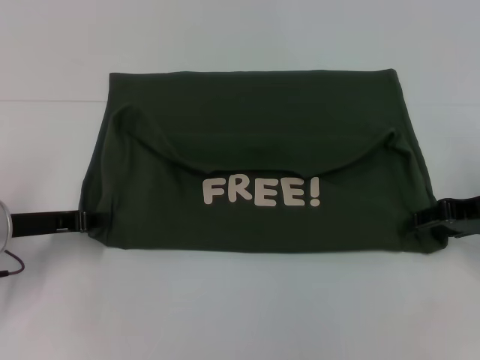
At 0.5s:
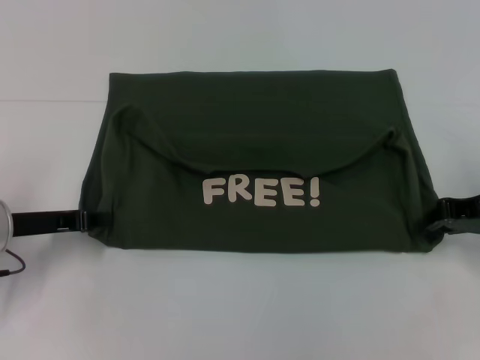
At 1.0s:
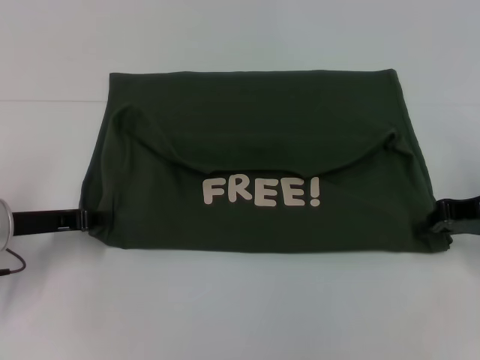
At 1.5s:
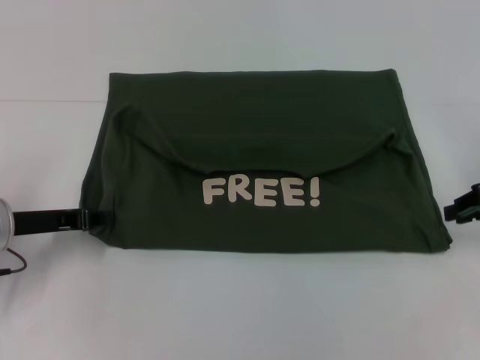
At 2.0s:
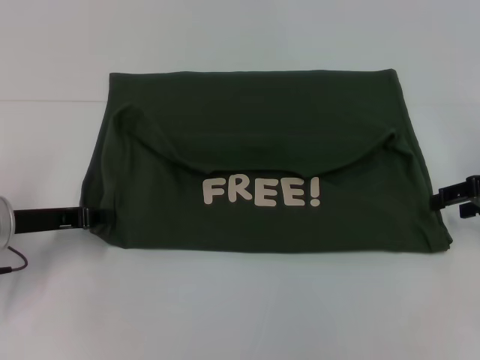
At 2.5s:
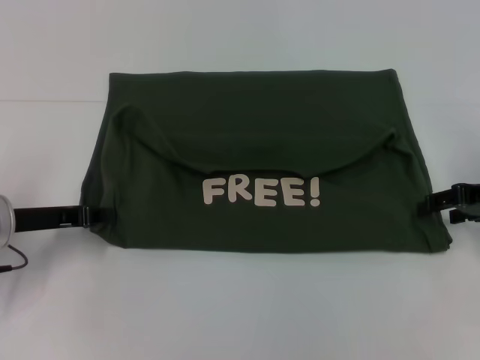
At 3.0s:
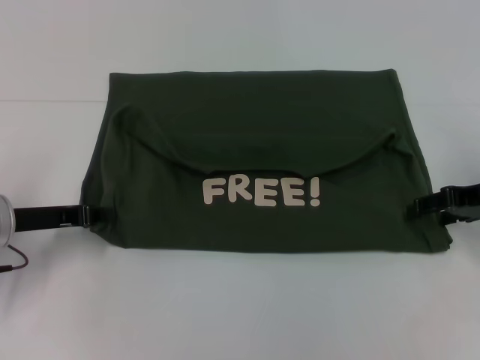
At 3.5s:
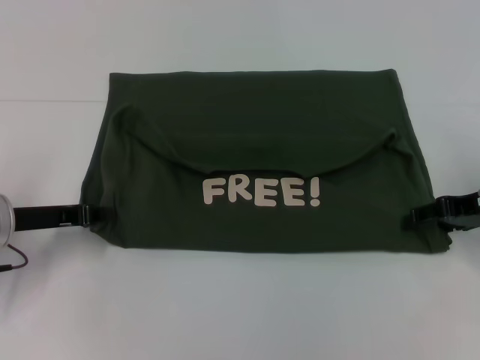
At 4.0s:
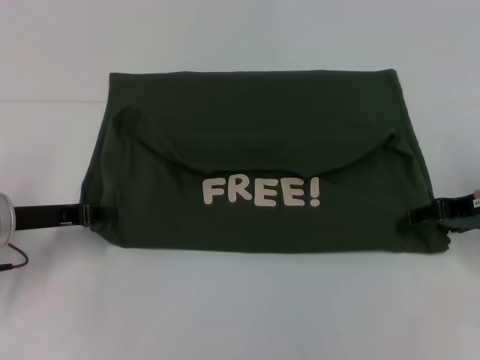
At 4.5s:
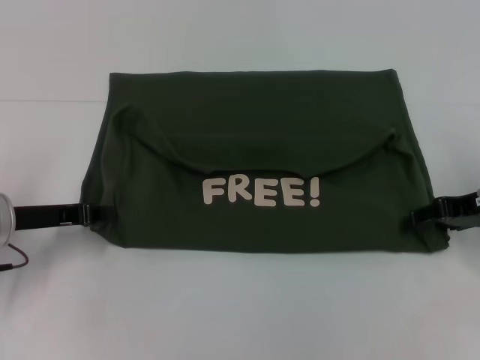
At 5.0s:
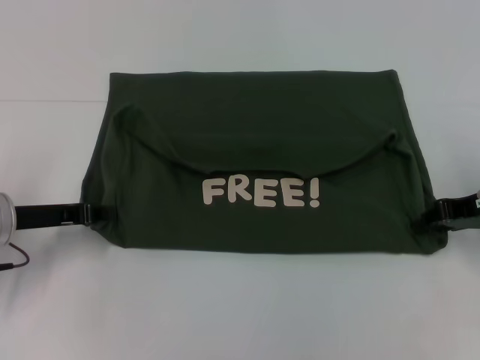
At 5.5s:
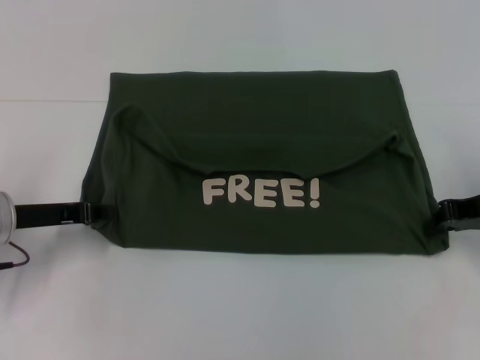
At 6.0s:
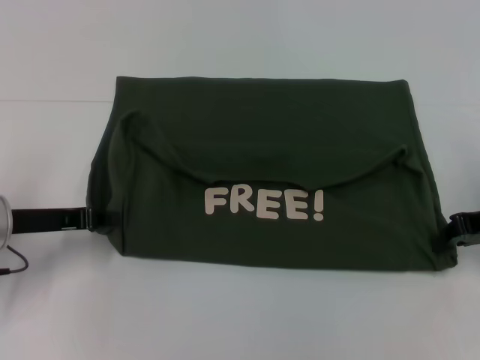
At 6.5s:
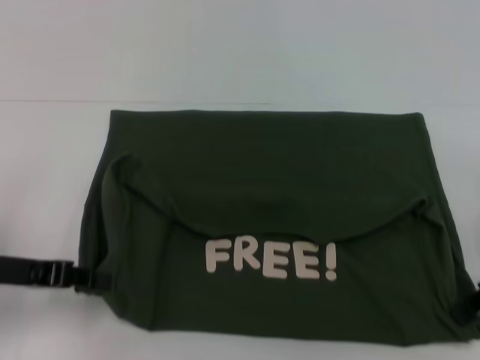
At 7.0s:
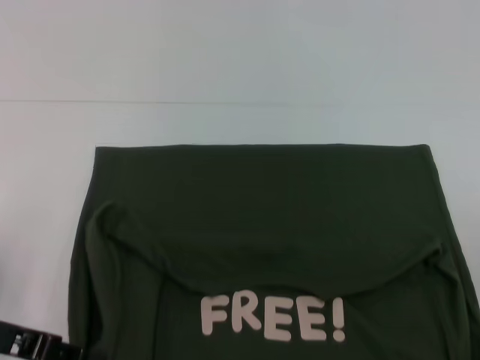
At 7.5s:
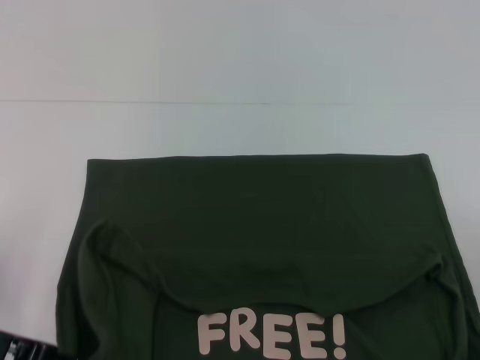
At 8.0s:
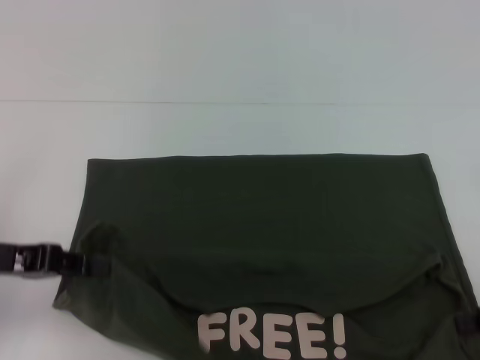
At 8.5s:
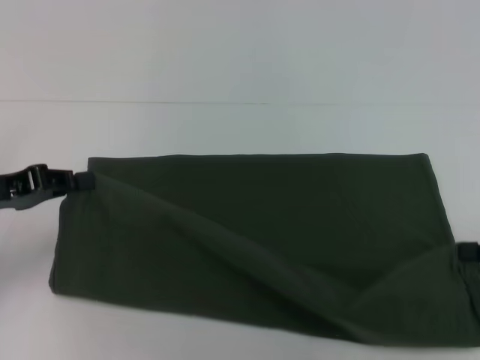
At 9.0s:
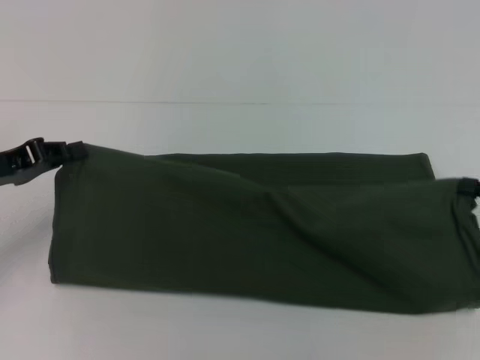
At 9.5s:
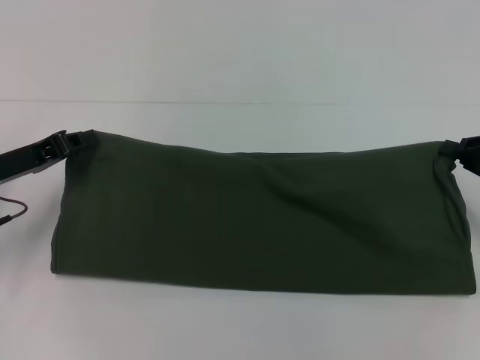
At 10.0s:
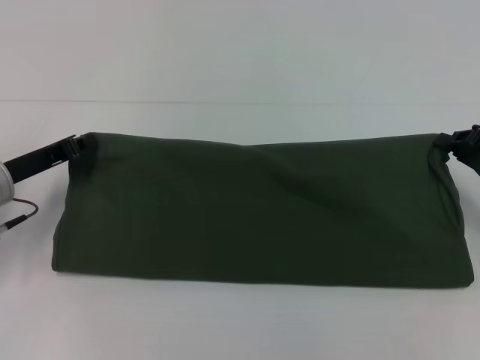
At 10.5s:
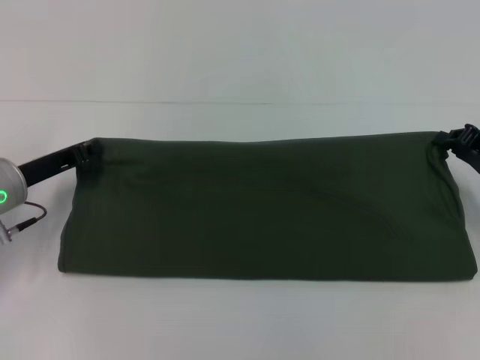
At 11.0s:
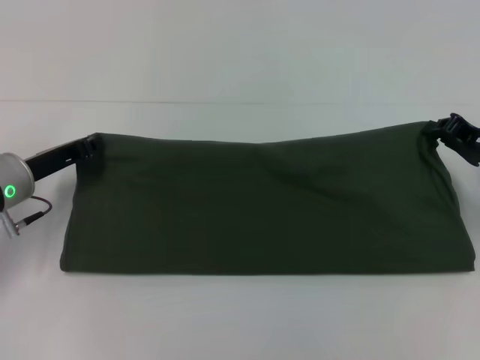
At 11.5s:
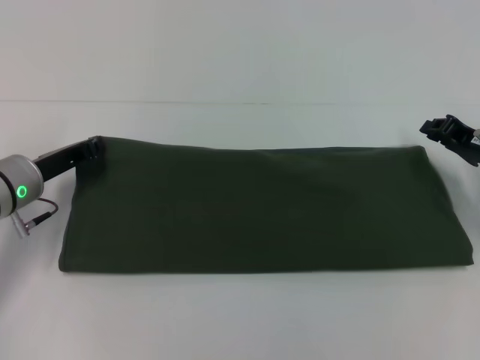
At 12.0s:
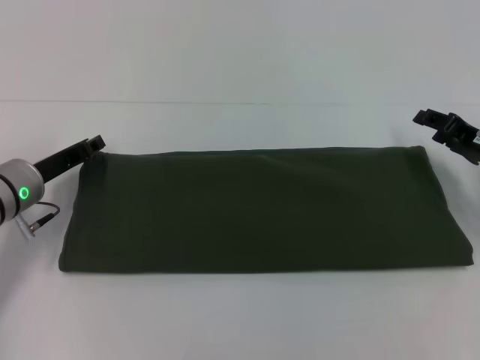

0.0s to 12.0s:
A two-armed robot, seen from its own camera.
Step, 0.0s to 7.0s: Pull the clothes with your left hand.
Step, 0.0s to 7.0s: Pull the clothes with your right hand.
Step, 7.5s to 11.5s: Fold the clothes with your right hand.
0.0s to 2.0s: The right gripper closes, then opens again.
2.0s to 4.0s: There are only small adjustments of the grippers.
4.0s to 6.0s: The right gripper closes its fingers.
6.0s to 8.0s: The right gripper heads backward, covering roughly 10 cm. Meanwhile the left gripper shifts by roughly 5 cm.
8.0s to 10.0s: The grippers both shift forward by some 10 cm.
10.0s to 12.0s: The right gripper opens its fingers.

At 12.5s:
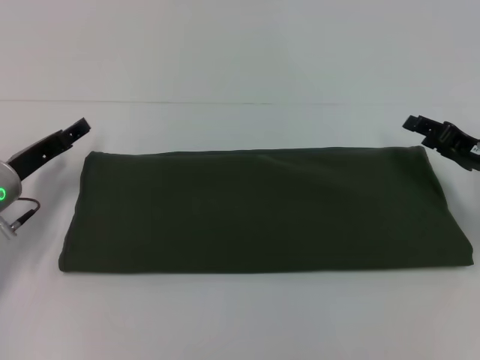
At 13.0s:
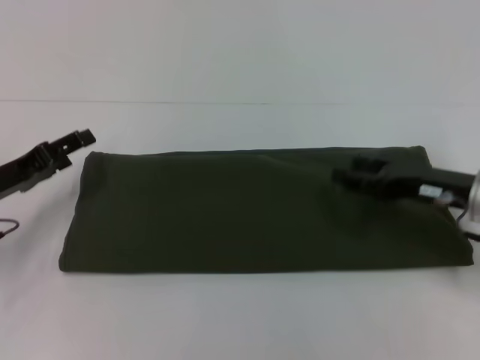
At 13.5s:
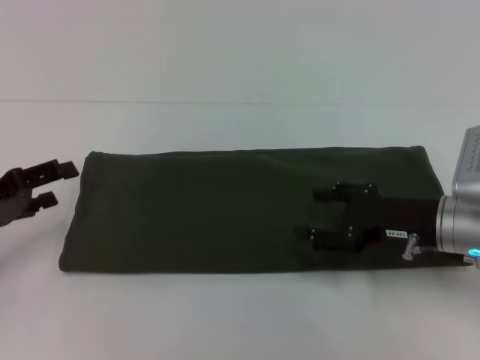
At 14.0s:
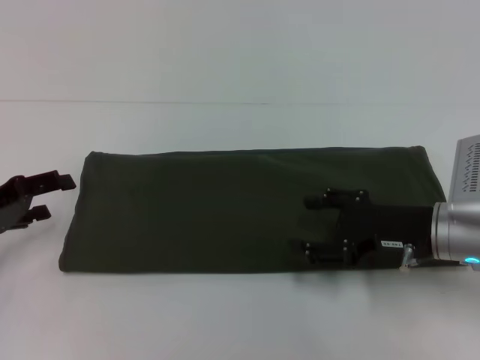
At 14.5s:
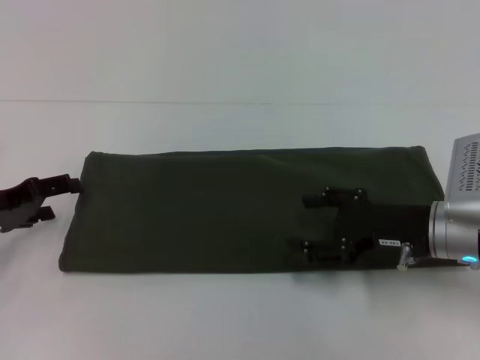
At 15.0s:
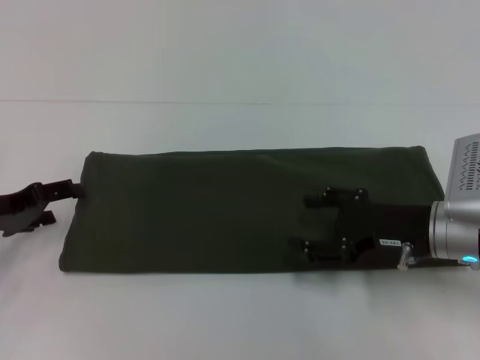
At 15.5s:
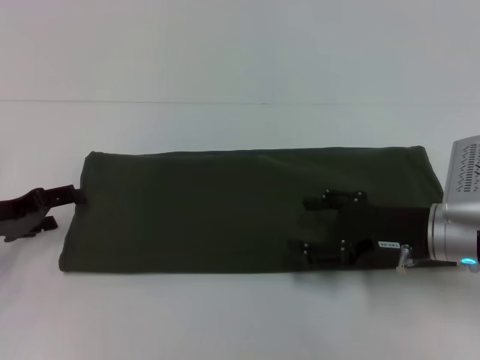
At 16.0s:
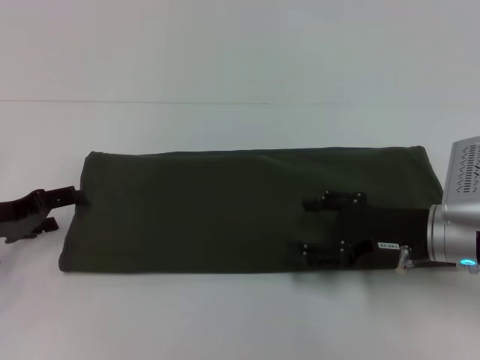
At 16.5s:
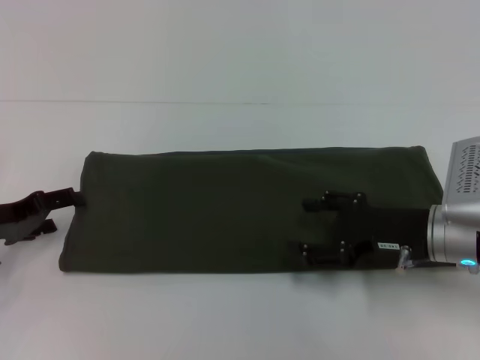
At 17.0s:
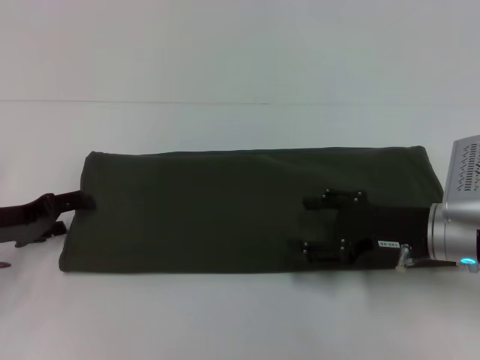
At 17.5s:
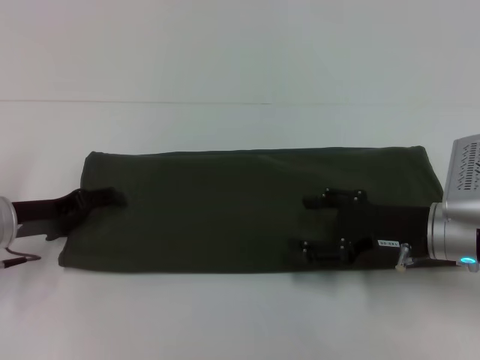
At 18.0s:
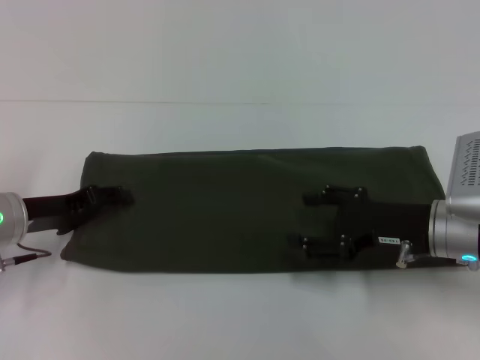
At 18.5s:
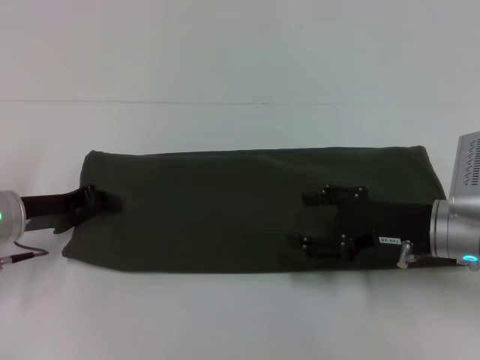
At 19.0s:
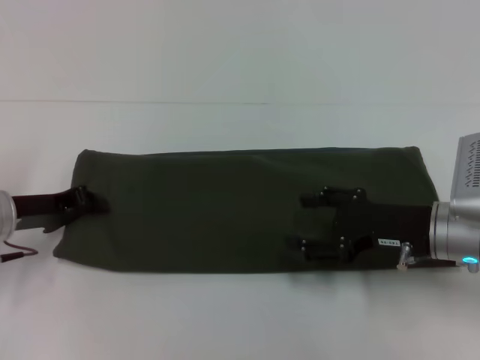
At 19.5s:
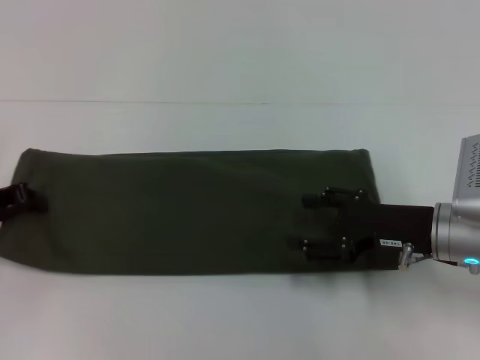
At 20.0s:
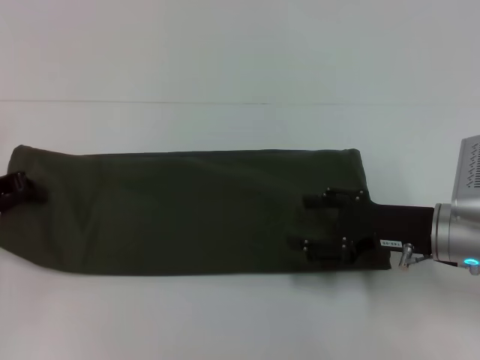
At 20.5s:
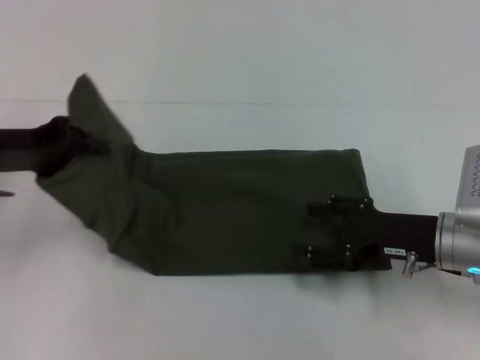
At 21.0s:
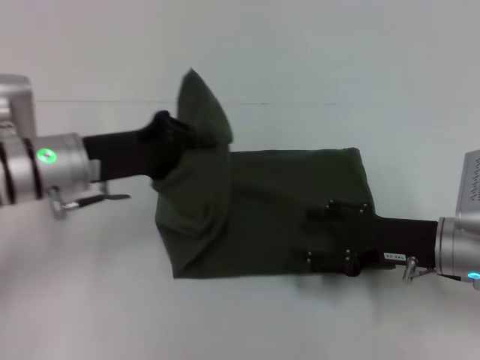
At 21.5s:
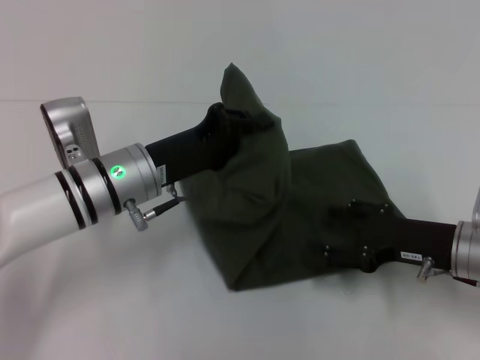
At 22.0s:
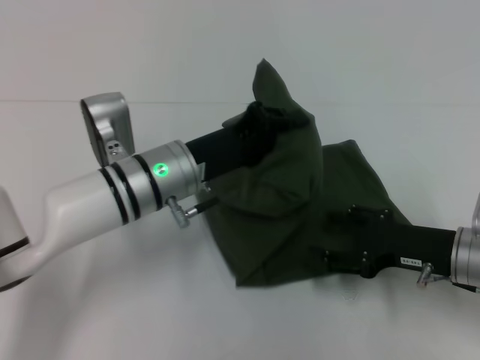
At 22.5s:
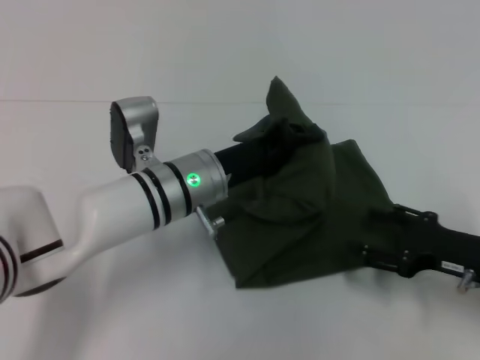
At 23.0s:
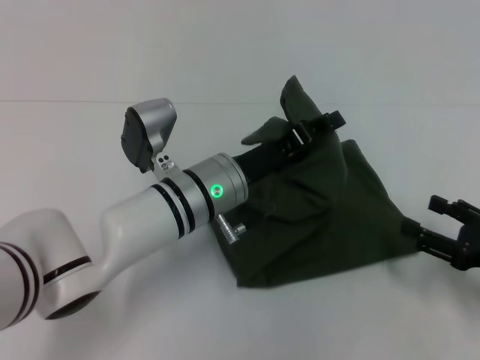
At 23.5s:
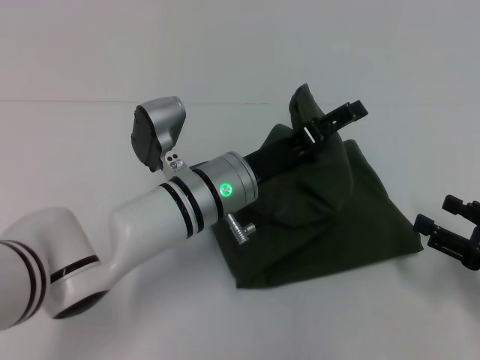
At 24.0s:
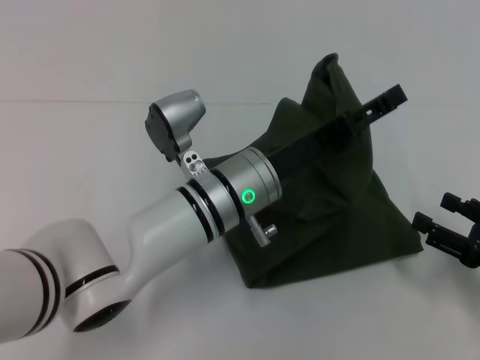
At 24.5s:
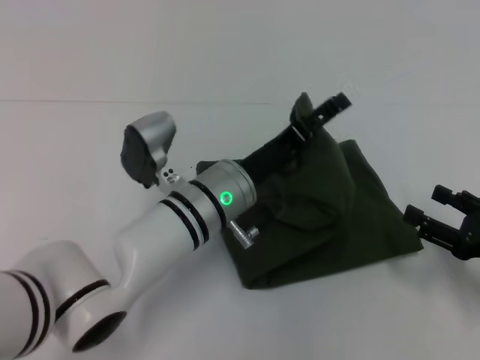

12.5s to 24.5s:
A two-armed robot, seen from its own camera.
12.5s to 14.5s: The right gripper shifts roughly 10 cm to the left. The left gripper shifts by roughly 5 cm.
14.5s to 16.5s: The grippers stay close to where they were, moving slightly.
16.5s to 18.5s: The left gripper closes up.
18.5s to 20.5s: The left gripper moves upward, some 10 cm, and closes up.
20.5s to 22.5s: The left gripper travels to the right by approximately 20 cm, while the right gripper goes approximately 5 cm to the right.
22.5s to 24.5s: The right gripper ends up about 5 cm from where it was. Meanwhile the left gripper opens.

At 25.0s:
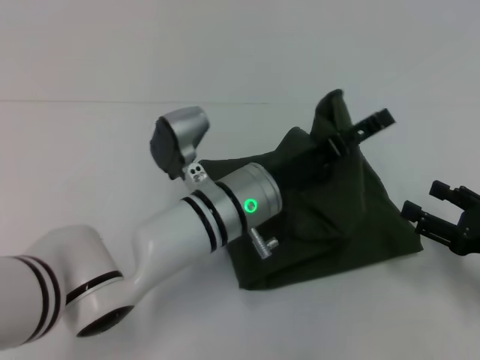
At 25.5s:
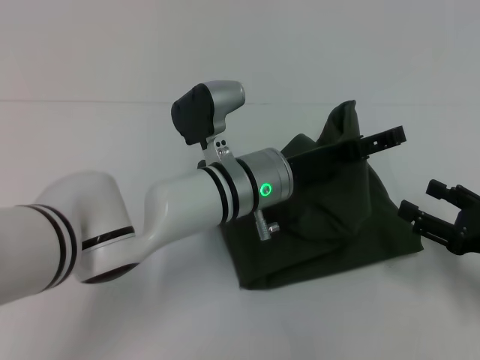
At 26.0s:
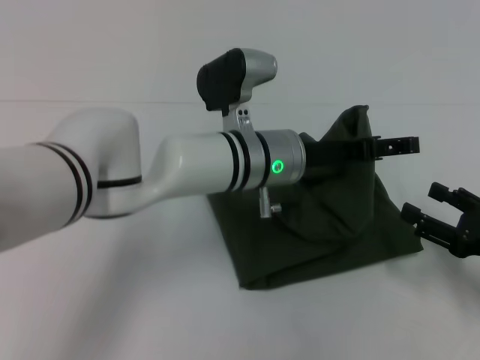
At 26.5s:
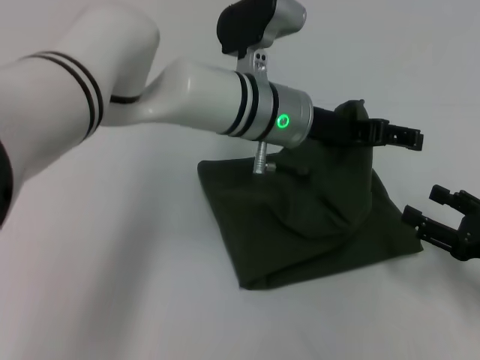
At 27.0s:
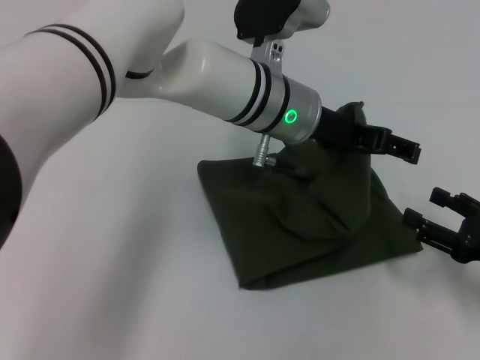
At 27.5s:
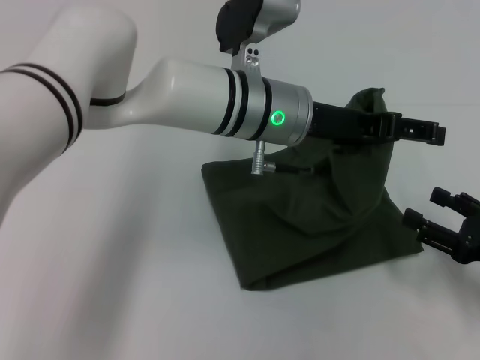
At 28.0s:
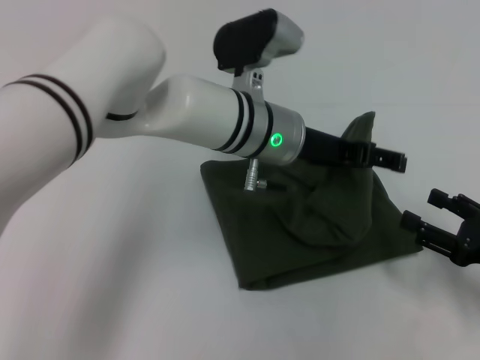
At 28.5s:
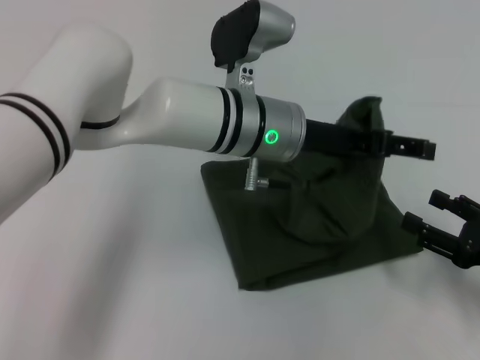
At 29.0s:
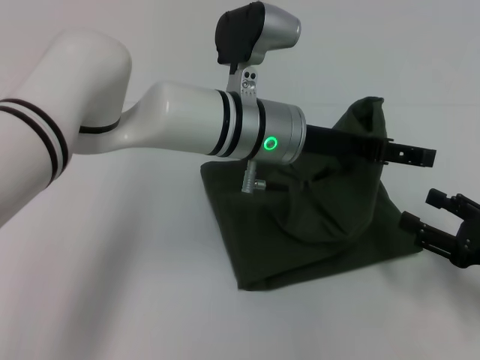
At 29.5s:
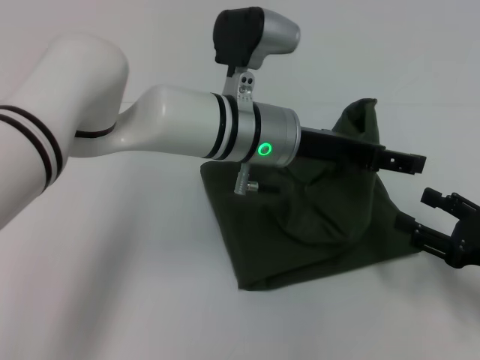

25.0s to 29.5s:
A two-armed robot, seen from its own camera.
25.0s to 27.0s: The left gripper heads upward and forward, covering some 10 cm.
